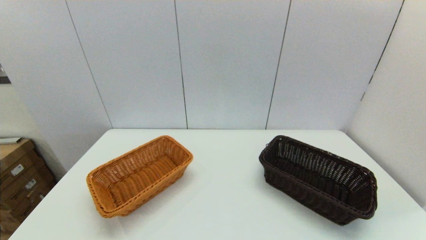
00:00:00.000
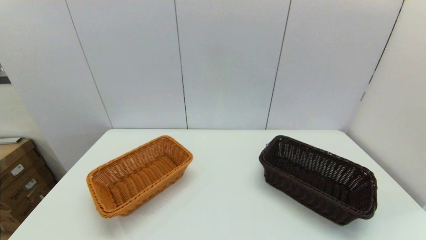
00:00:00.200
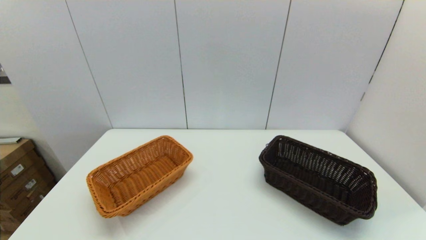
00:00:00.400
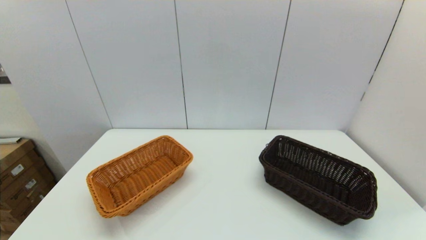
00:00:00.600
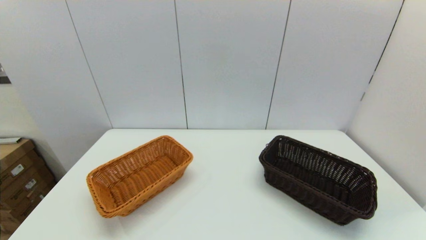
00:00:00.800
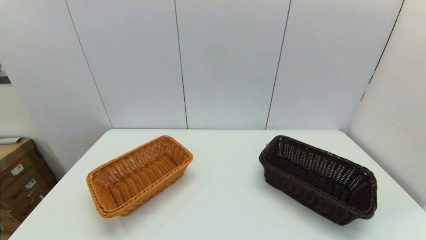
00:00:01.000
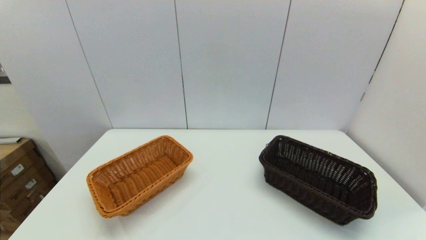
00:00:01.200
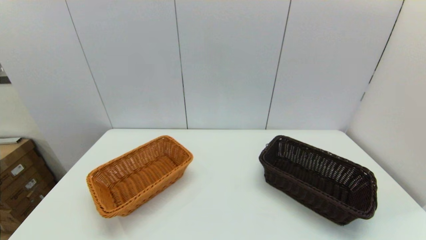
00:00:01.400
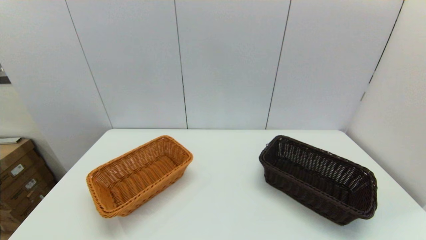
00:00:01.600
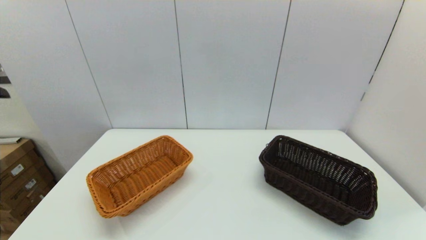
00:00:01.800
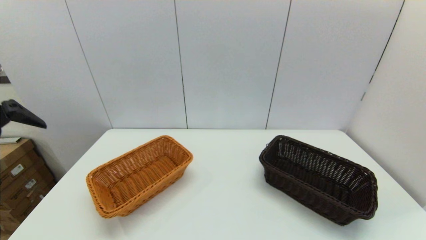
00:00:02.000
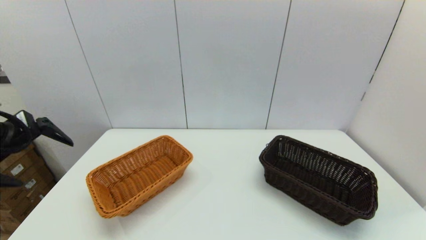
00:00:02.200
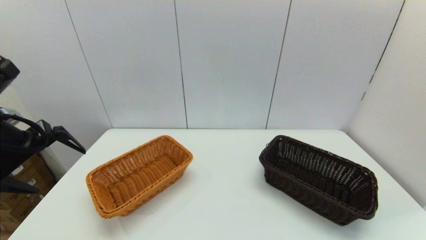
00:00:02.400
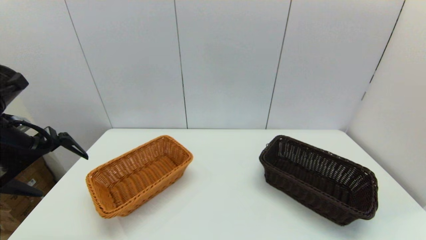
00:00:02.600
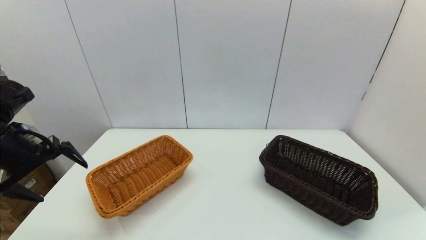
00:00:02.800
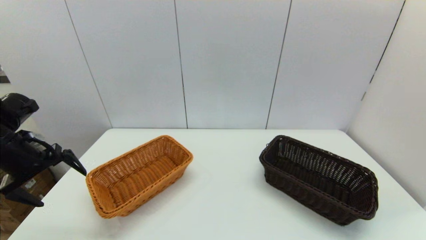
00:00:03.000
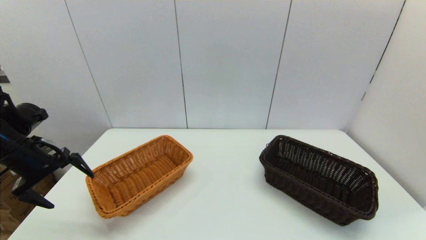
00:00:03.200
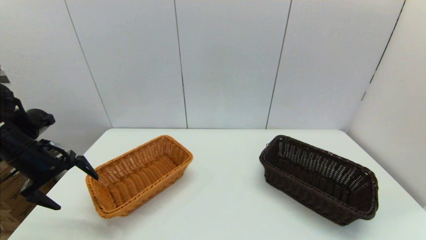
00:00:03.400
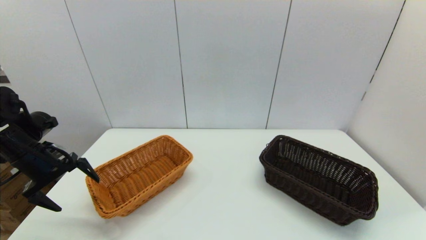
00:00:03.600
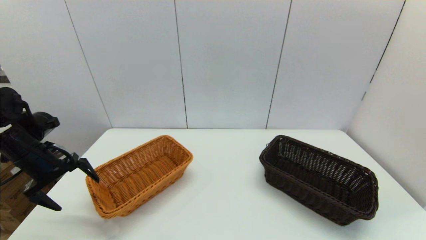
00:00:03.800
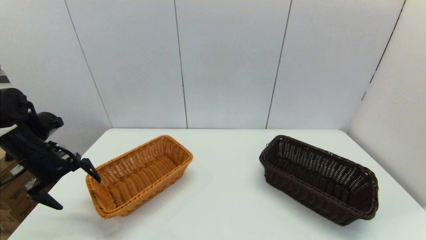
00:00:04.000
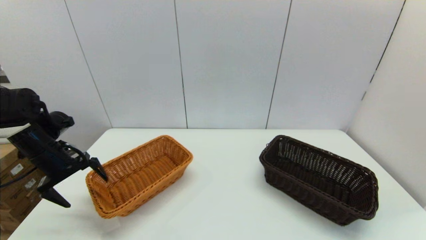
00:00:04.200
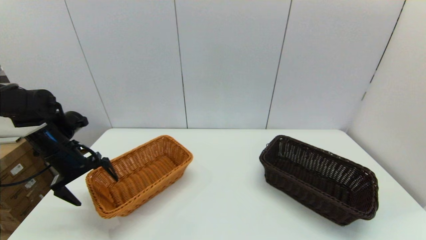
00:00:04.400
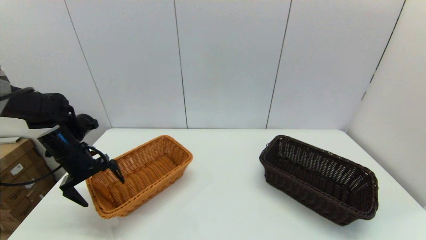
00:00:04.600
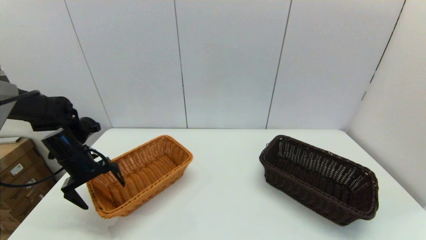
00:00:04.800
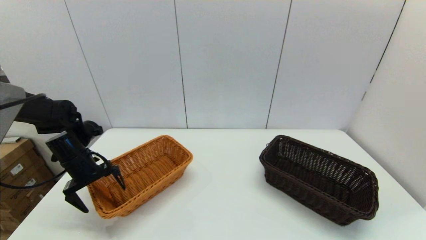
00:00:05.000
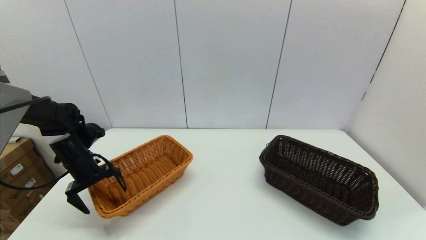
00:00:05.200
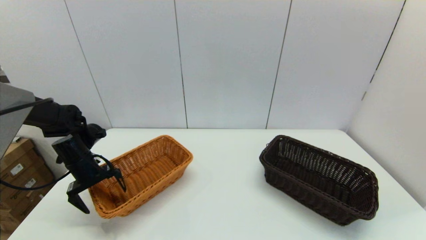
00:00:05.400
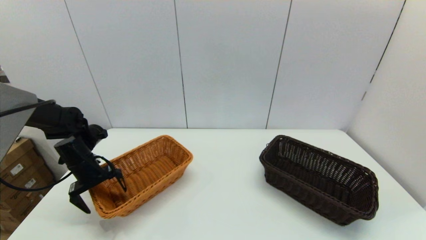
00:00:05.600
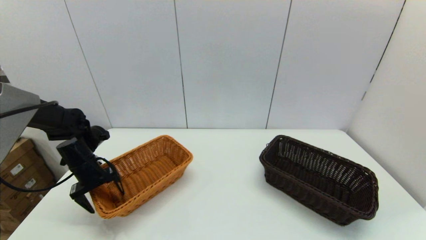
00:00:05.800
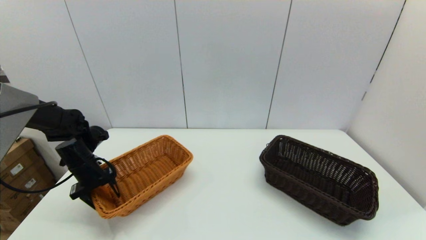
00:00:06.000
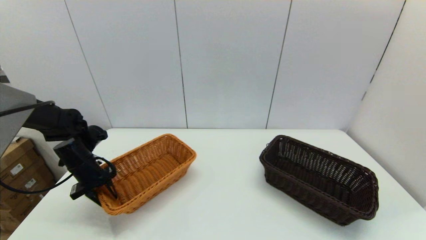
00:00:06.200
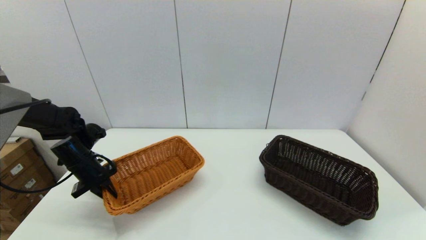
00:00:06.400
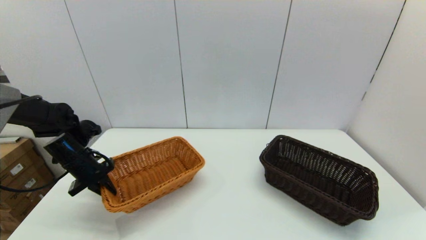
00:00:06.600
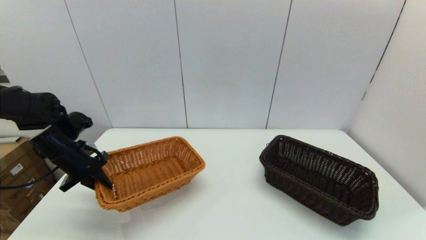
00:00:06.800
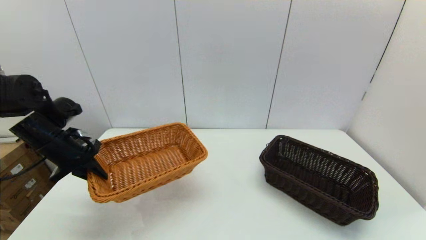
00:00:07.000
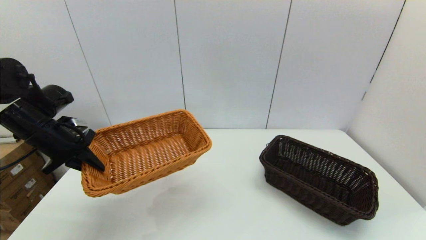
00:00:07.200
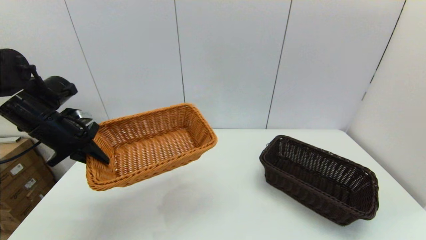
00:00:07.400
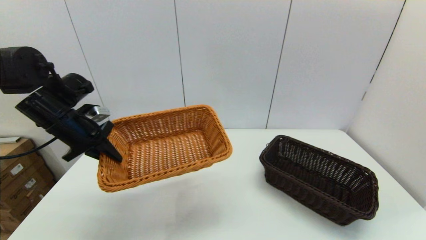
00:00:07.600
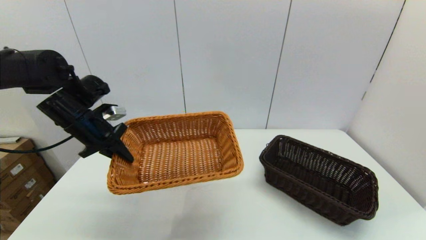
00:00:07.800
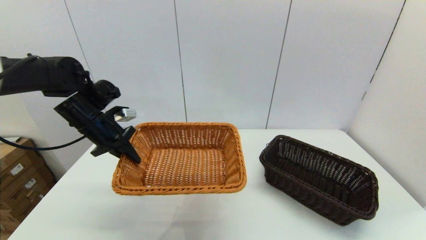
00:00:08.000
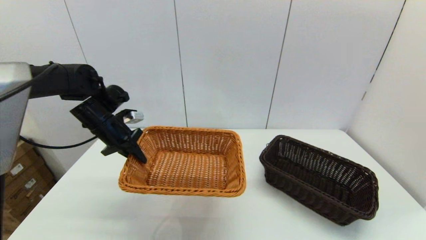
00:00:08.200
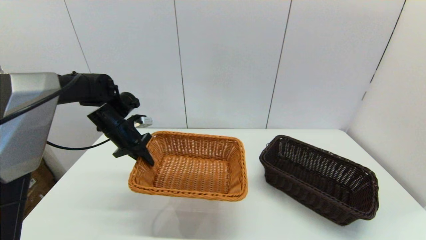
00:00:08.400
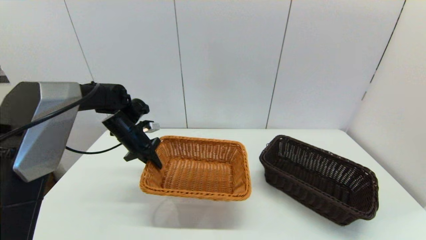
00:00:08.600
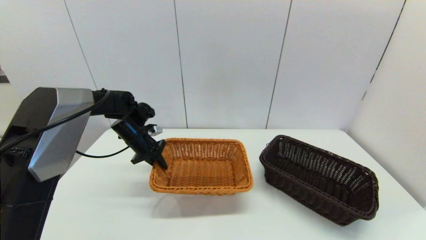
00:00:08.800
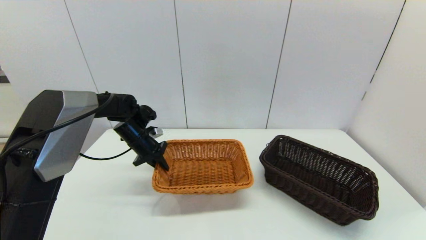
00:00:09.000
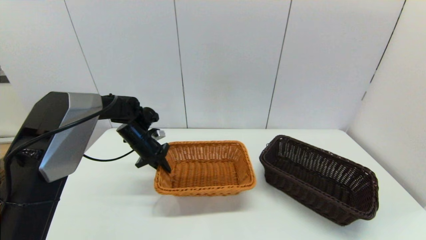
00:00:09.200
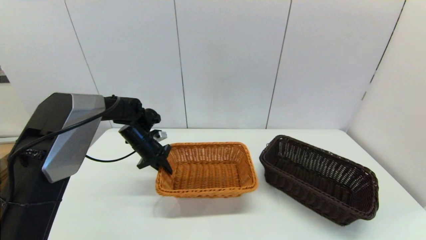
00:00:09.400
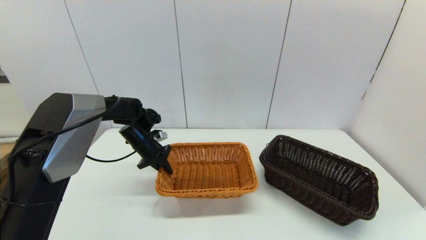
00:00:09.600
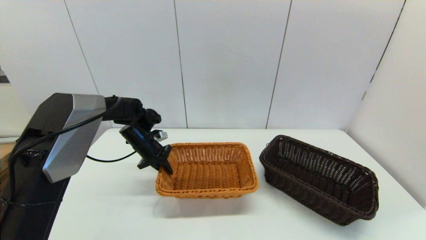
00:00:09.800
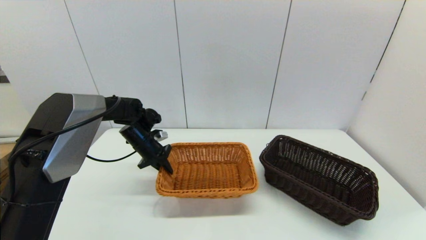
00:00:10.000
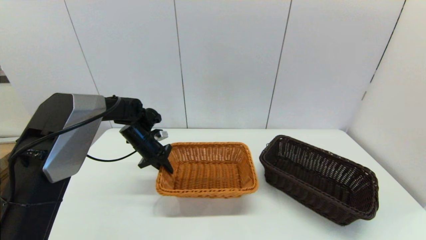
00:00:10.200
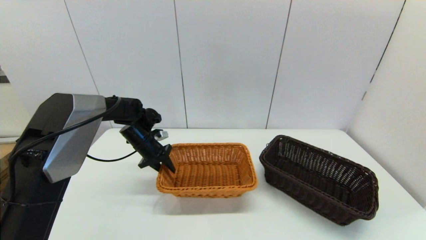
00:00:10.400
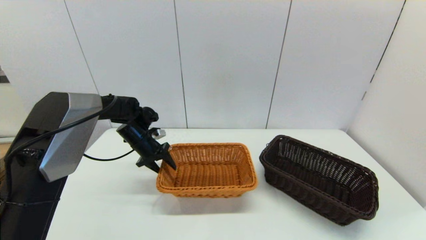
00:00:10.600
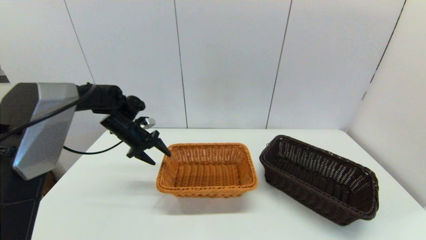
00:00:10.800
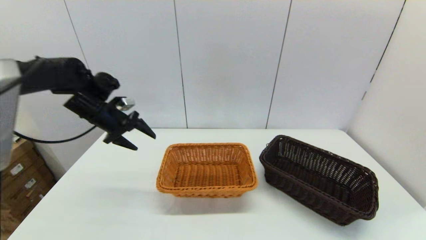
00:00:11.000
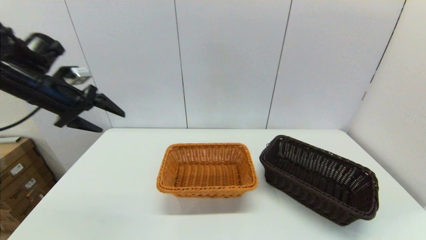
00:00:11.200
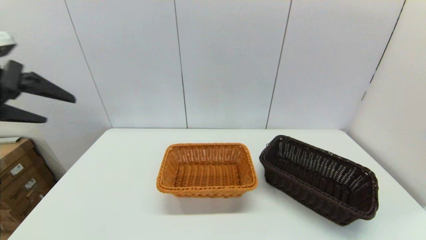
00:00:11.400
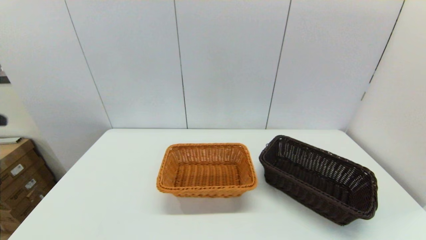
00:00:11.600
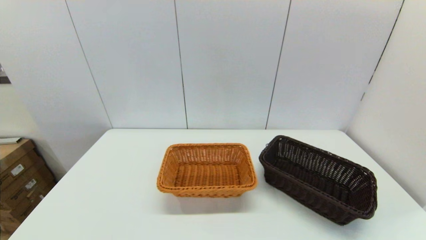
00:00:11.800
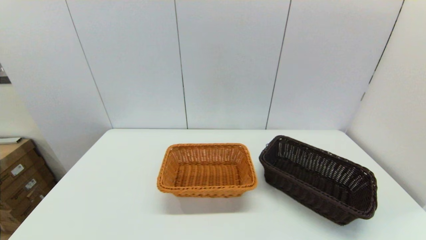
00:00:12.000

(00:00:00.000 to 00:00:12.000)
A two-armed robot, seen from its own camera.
Task of the whole recording: stack a basket on top of another basket.
Step, 00:00:02.000 - 00:00:06.200: Grasp the light basket with the left gripper.
Step, 00:00:06.400 - 00:00:11.000: Place the light basket on the middle of the table with the left gripper.
00:00:01.600 - 00:00:03.000: The left gripper moves forward and downward, some 25 cm.
00:00:03.000 - 00:00:04.400: The left gripper is displaced forward and downward by approximately 10 cm.
00:00:04.400 - 00:00:06.000: The left gripper shifts approximately 5 cm downward, and closes its fingers.
00:00:06.000 - 00:00:07.600: The left gripper travels upward by about 15 cm, and closes up.
00:00:07.600 - 00:00:09.000: The left gripper heads downward, forward and to the right, covering some 20 cm.
00:00:09.000 - 00:00:10.400: The grippers make only small movements.
00:00:10.400 - 00:00:12.000: The left gripper travels backward by roughly 50 cm, and opens.

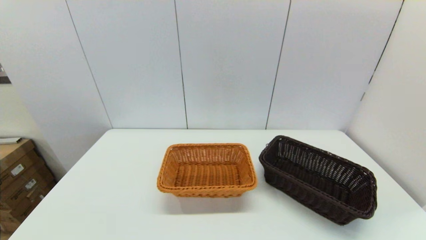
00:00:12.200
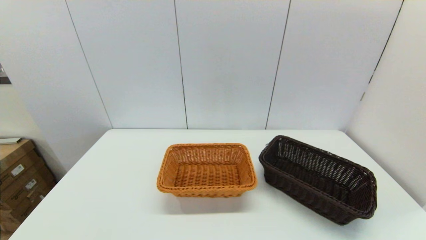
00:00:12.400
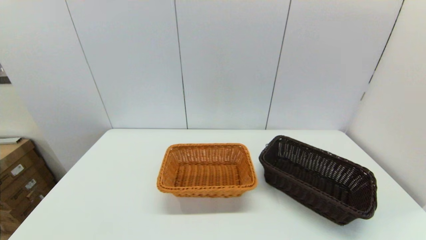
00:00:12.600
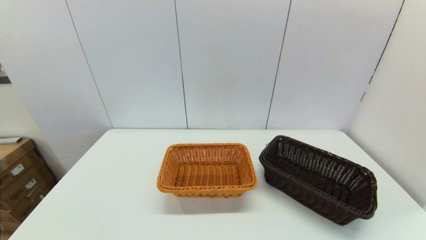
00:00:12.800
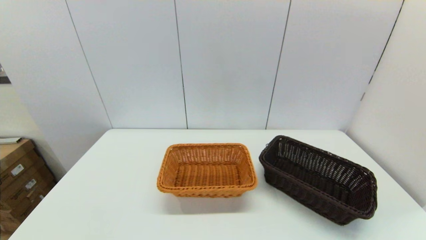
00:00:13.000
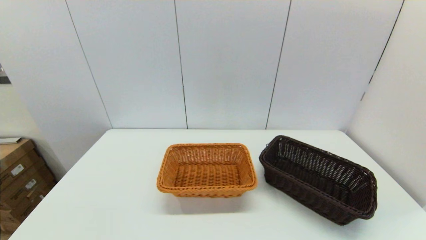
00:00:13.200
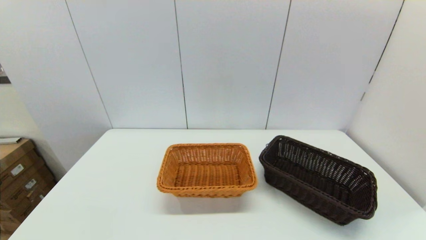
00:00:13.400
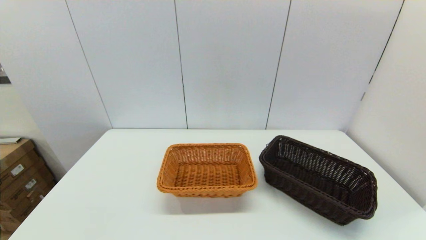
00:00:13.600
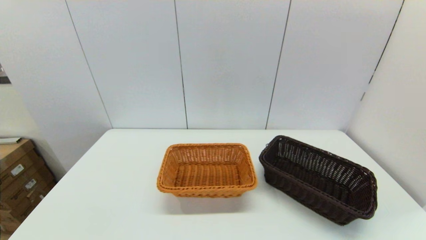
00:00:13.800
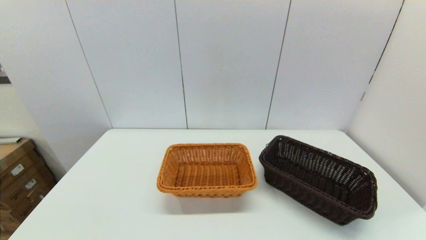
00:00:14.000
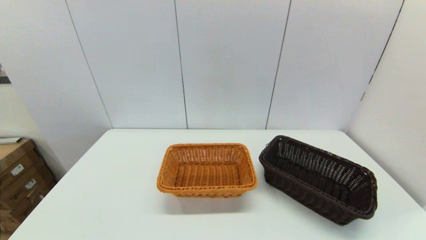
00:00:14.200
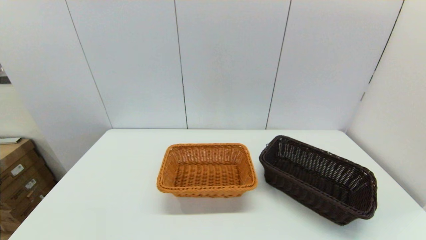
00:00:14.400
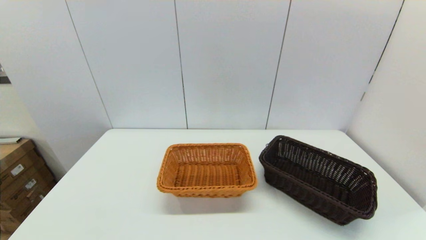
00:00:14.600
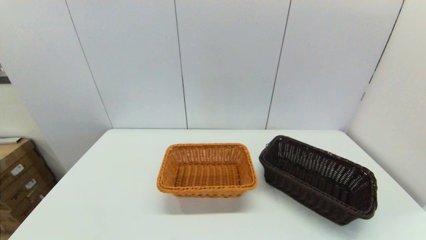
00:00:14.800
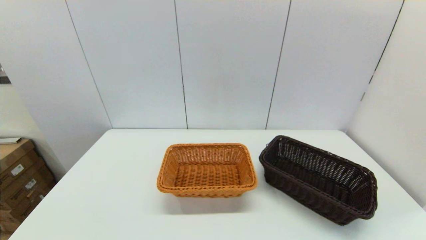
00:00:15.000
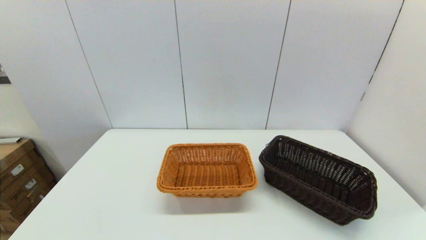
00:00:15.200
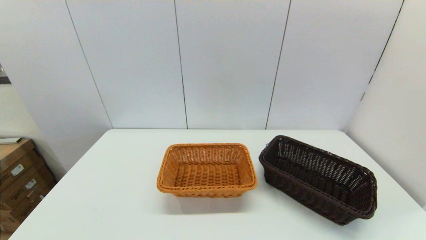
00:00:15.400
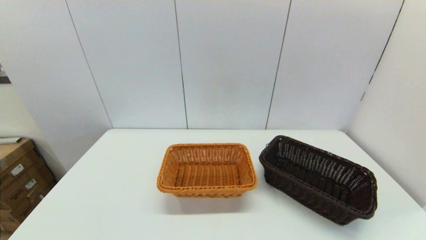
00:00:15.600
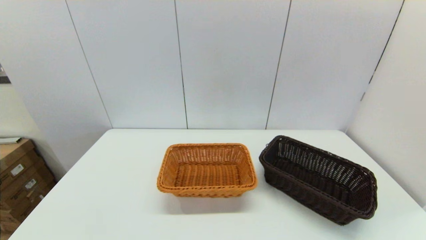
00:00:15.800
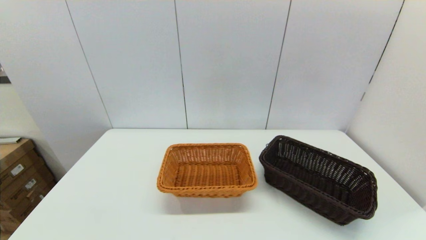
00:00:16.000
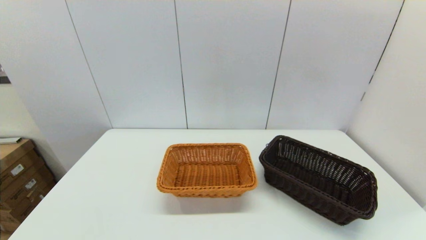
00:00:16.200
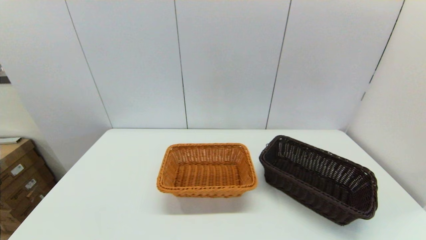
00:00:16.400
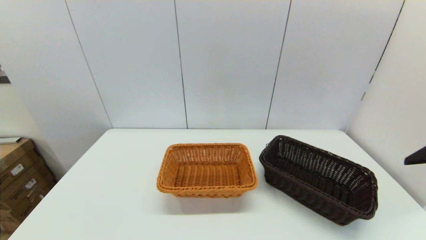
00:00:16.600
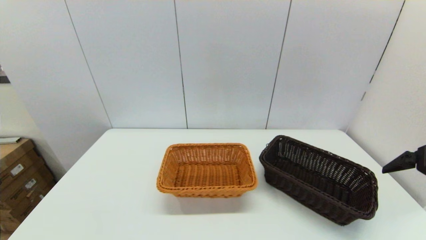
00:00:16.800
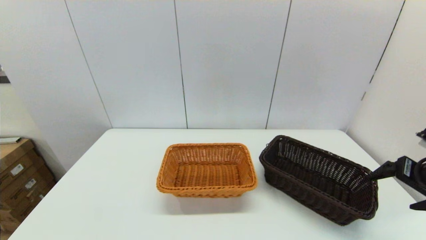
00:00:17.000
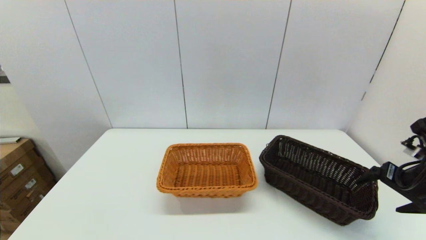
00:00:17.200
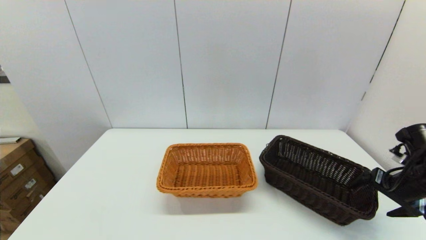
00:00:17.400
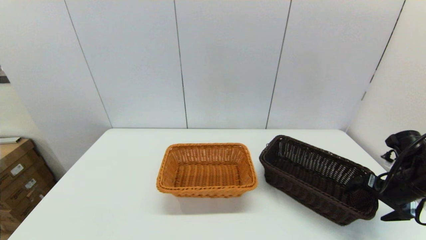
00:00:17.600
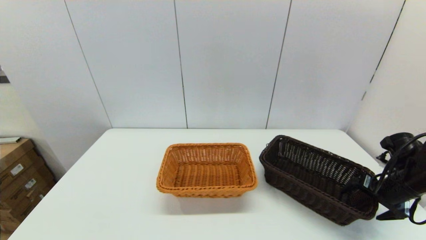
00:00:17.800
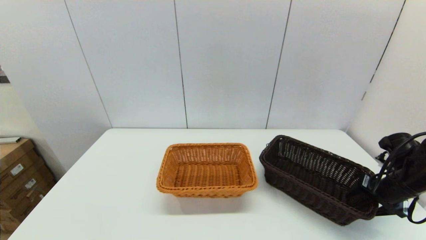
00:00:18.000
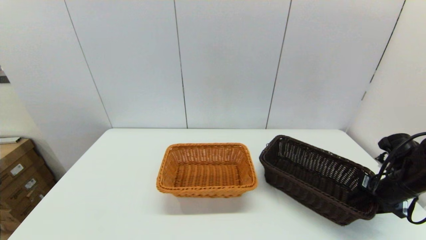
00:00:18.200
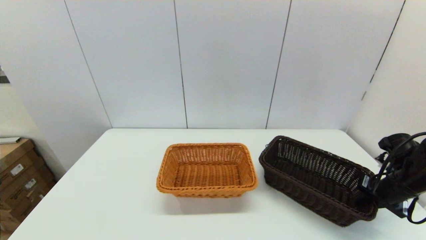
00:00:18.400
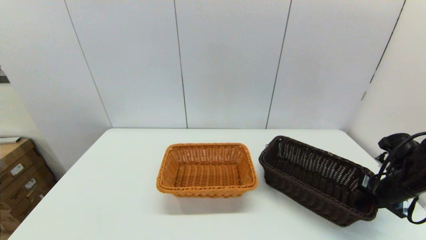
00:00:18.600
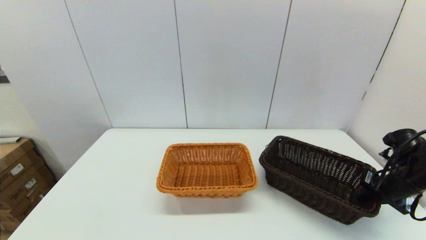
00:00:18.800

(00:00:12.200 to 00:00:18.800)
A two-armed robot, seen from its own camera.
Task of the whole recording: stack a basket on top of another basket.
Step, 00:00:12.200 - 00:00:18.400: Grasp the dark basket with the right gripper.
00:00:15.400 - 00:00:17.200: The right gripper travels forward by about 30 cm.
00:00:17.200 - 00:00:18.800: The right gripper is displaced downward by roughly 5 cm, and closes its fingers.
